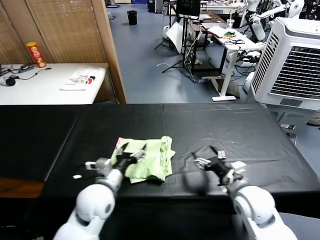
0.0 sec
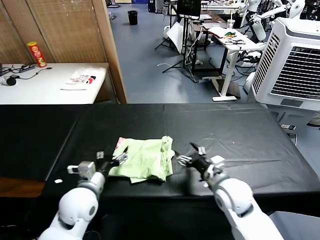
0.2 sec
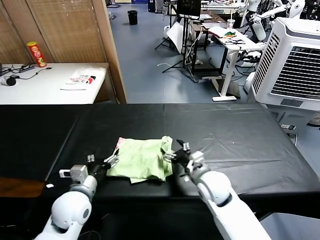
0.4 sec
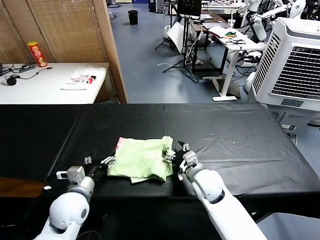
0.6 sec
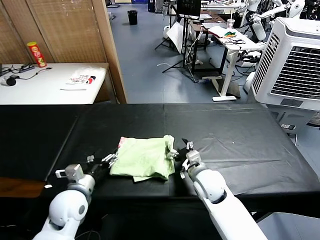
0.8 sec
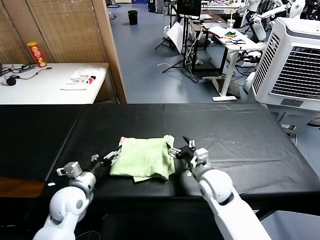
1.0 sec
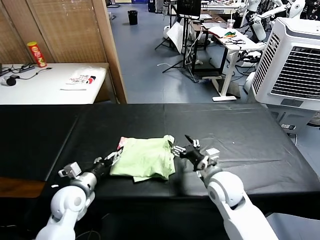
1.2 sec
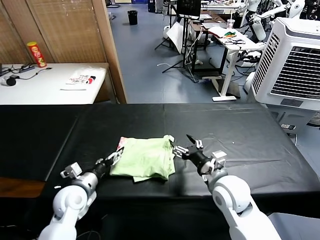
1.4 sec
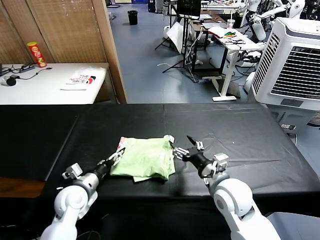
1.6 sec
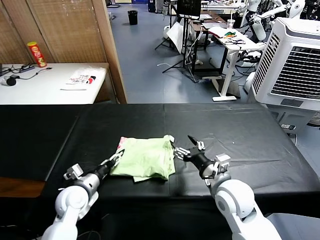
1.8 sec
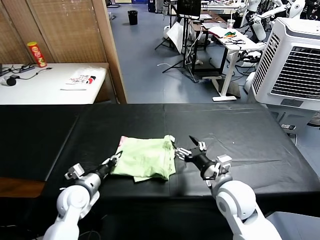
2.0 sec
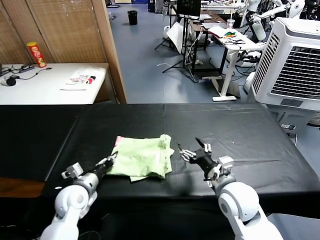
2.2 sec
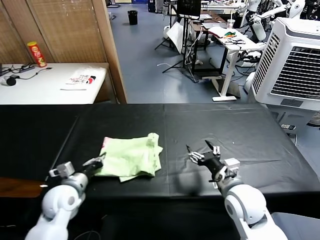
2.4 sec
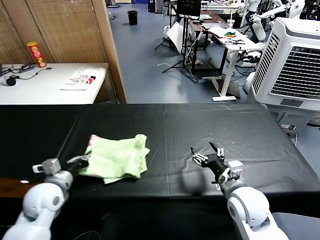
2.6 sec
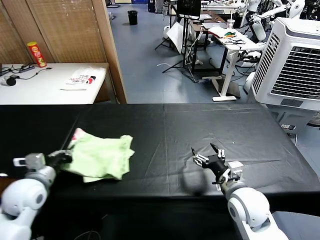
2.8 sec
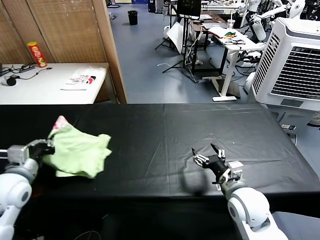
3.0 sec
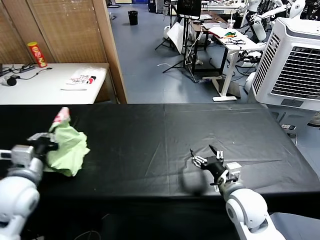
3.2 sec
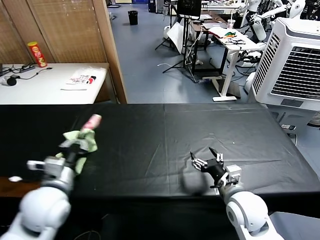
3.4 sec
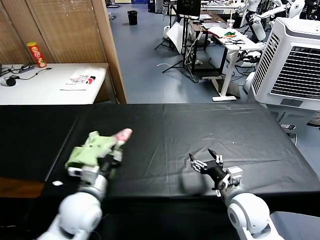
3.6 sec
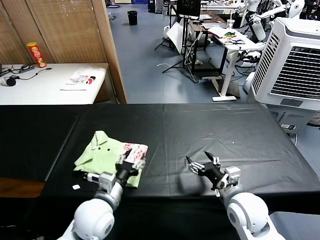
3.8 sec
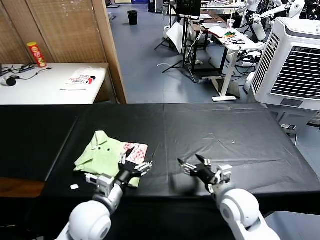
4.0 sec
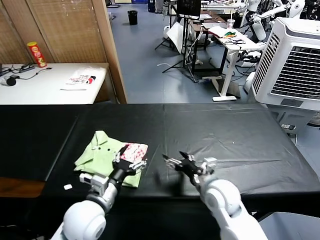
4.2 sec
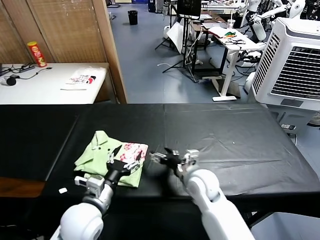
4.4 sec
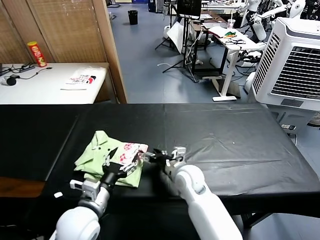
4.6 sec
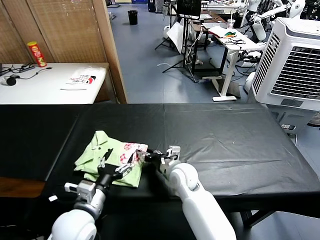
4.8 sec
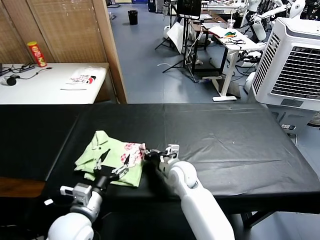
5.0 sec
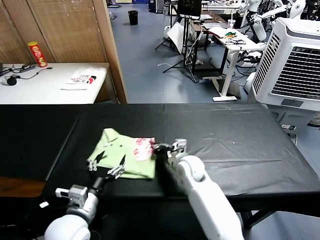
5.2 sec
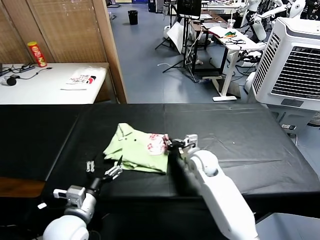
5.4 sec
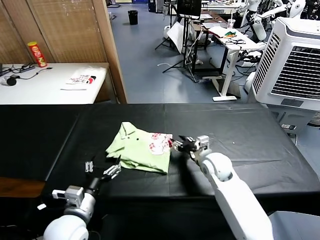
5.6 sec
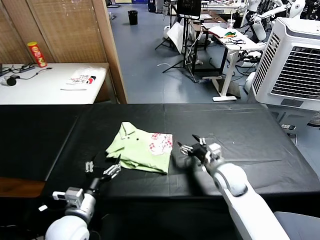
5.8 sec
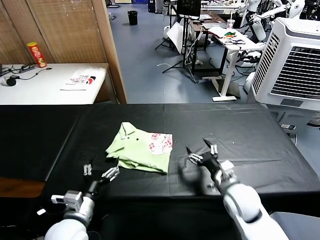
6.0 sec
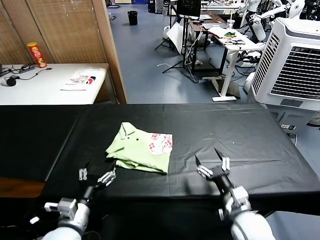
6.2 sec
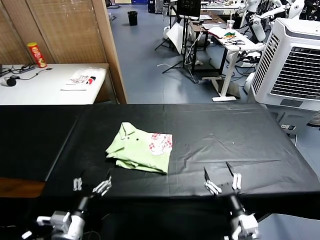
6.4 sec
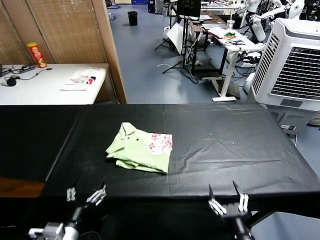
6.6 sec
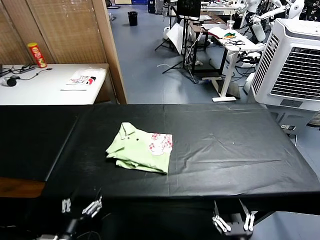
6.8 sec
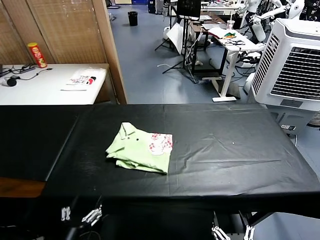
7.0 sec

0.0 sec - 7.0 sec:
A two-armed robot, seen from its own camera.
Task of the whole recording: fold and organize the clothes.
Step, 0.0 sec - 3.6 sec: Flip the folded clothes over with left gripper.
Step, 4.0 sec - 5.6 sec: Drag the clothes to the center of the table.
0.0 sec - 1.4 sec: The left gripper shifts approximately 10 cm to the left and downward. The right gripper travels to the left by roughly 5 cm.
1.4 sec - 2.8 sec: The left gripper is displaced upward and to the left by approximately 10 cm, and closes up. Meanwhile the right gripper shifts by some 5 cm.
2.8 sec - 4.2 sec: The left gripper shifts approximately 20 cm to the right, and opens. Meanwhile the right gripper shifts roughly 5 cm to the left.
4.2 sec - 5.6 sec: The left gripper ends up some 5 cm from where it was. The right gripper goes roughly 10 cm forward, and closes up.
5.6 sec - 7.0 sec: The left gripper goes some 10 cm backward. Meanwhile the right gripper shifts some 40 cm backward, and opens its fingers.
